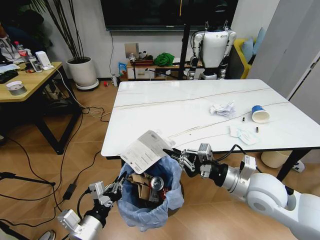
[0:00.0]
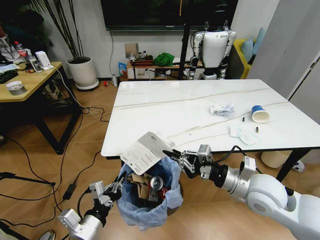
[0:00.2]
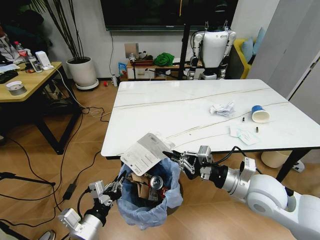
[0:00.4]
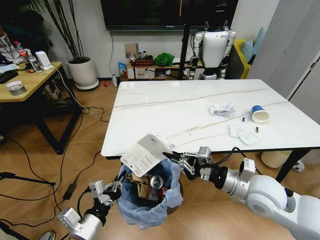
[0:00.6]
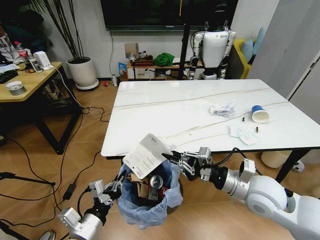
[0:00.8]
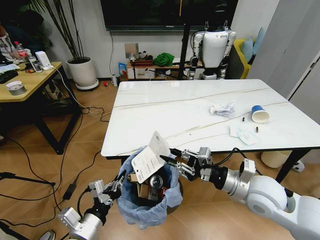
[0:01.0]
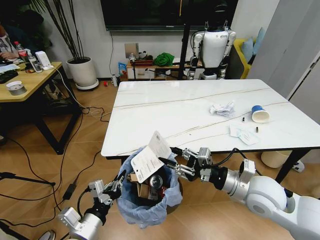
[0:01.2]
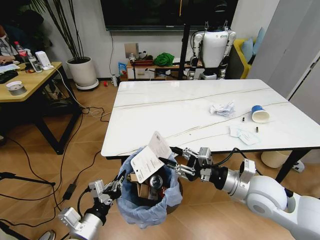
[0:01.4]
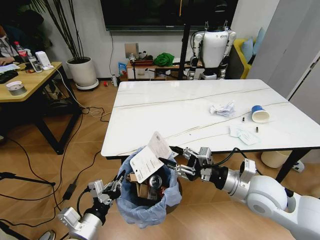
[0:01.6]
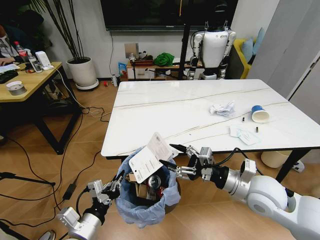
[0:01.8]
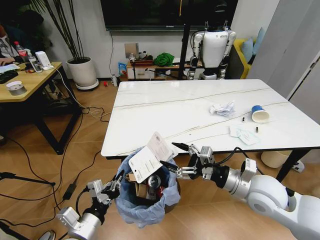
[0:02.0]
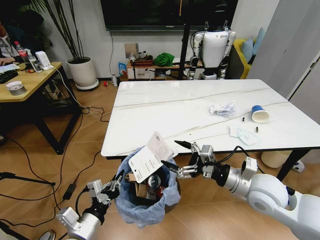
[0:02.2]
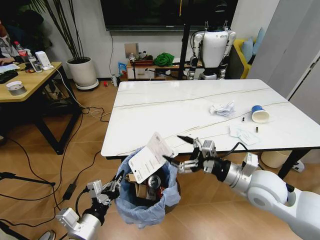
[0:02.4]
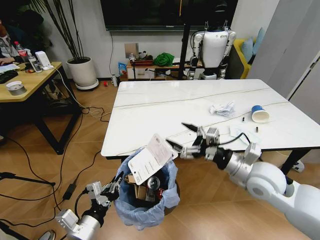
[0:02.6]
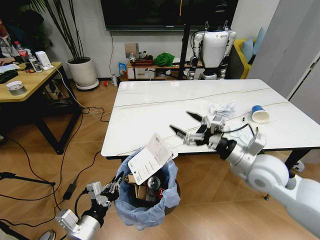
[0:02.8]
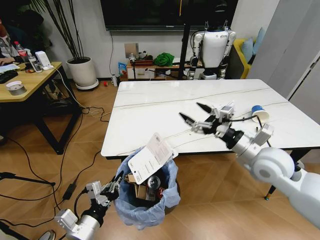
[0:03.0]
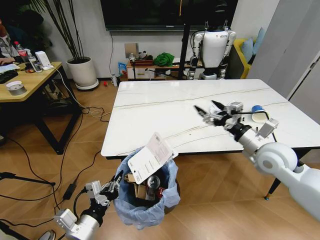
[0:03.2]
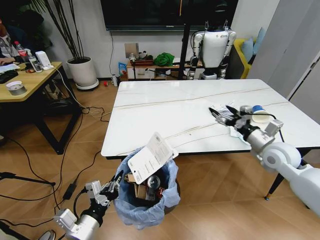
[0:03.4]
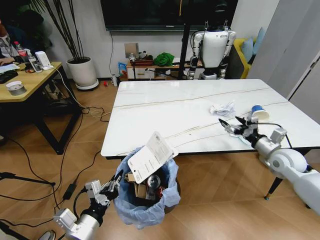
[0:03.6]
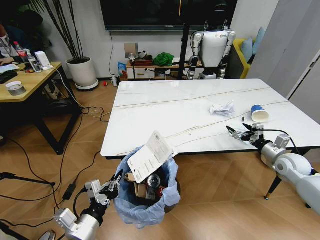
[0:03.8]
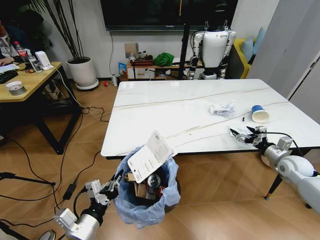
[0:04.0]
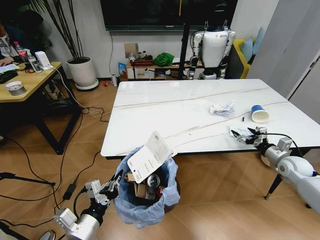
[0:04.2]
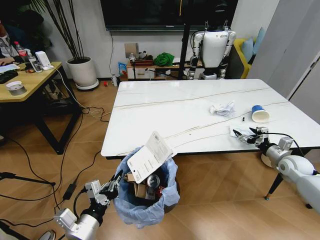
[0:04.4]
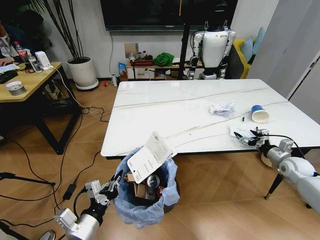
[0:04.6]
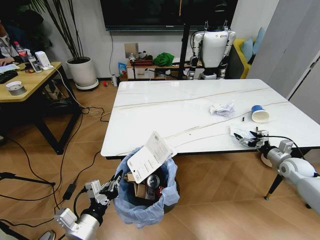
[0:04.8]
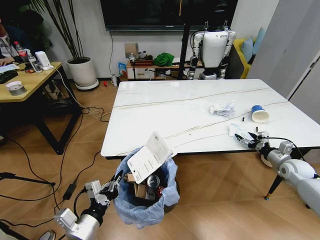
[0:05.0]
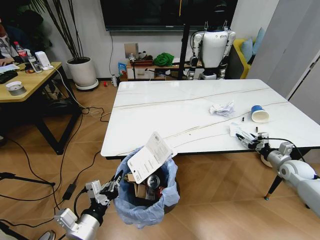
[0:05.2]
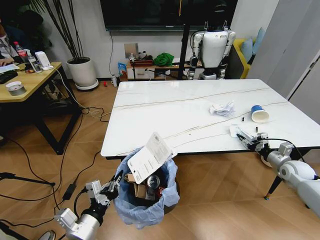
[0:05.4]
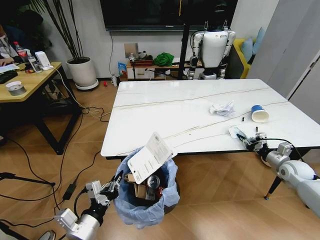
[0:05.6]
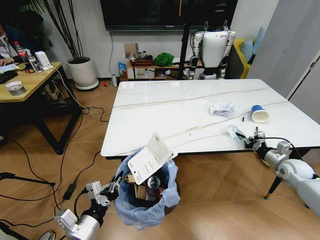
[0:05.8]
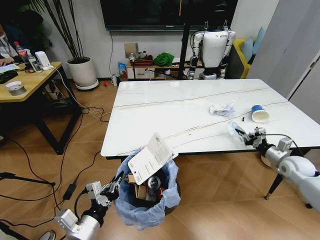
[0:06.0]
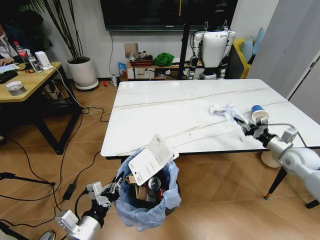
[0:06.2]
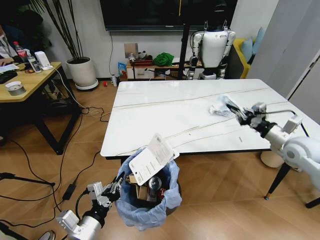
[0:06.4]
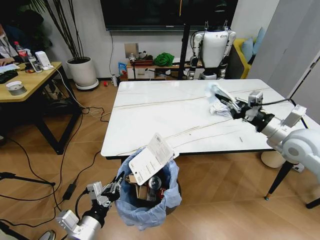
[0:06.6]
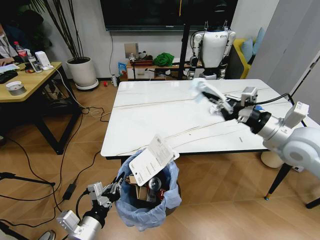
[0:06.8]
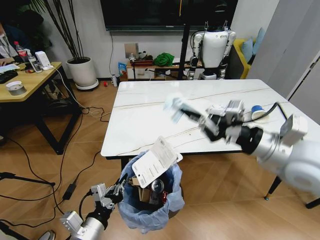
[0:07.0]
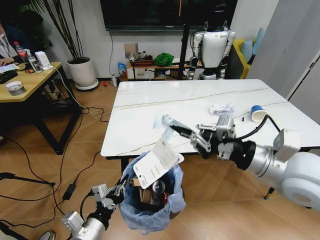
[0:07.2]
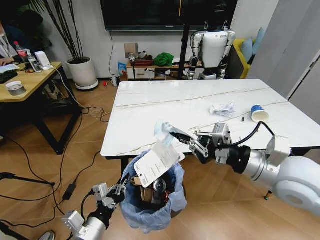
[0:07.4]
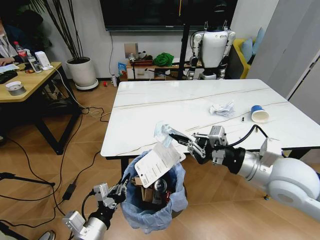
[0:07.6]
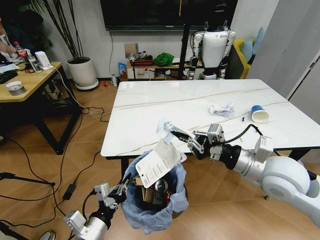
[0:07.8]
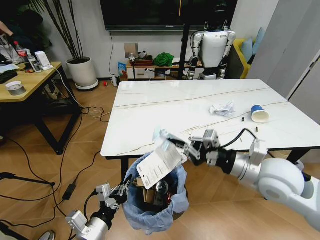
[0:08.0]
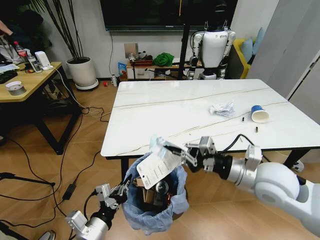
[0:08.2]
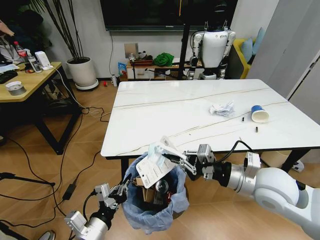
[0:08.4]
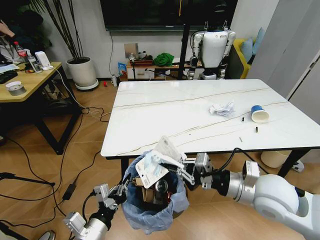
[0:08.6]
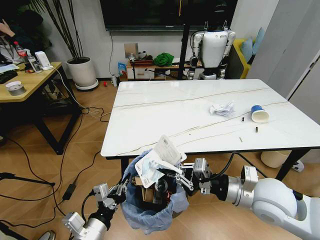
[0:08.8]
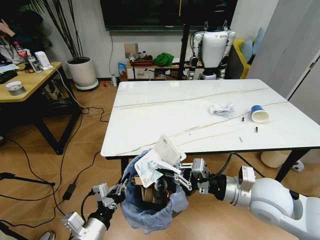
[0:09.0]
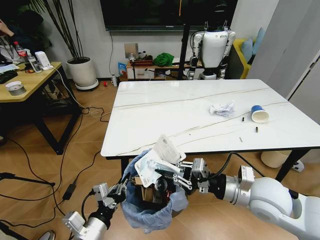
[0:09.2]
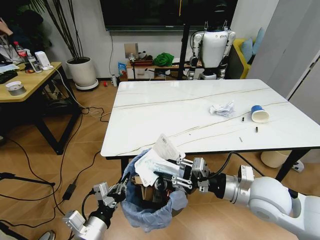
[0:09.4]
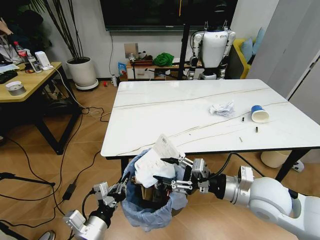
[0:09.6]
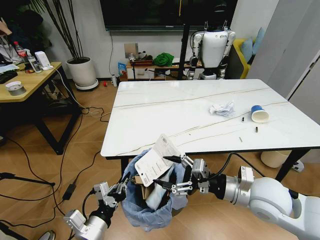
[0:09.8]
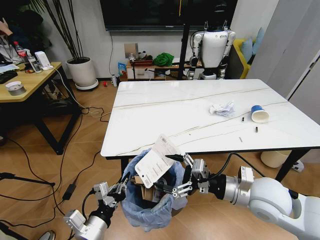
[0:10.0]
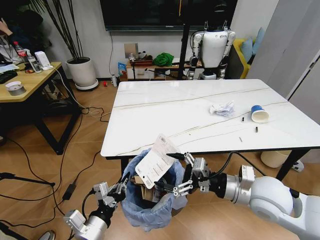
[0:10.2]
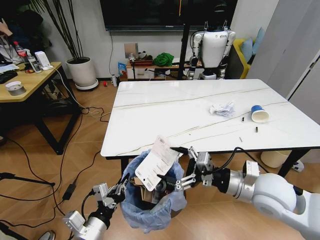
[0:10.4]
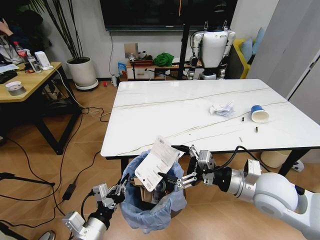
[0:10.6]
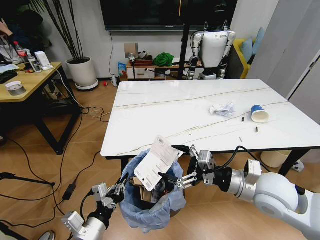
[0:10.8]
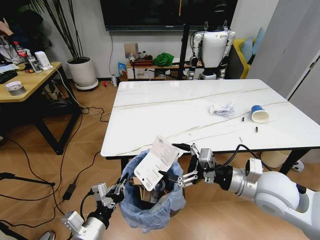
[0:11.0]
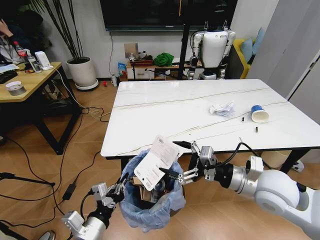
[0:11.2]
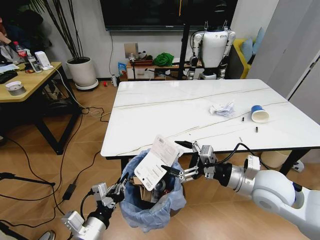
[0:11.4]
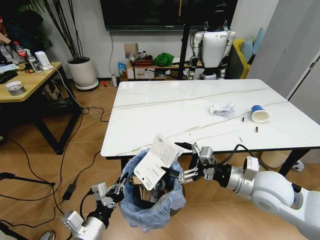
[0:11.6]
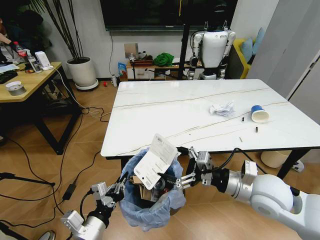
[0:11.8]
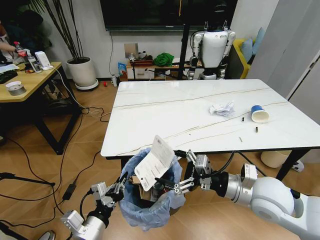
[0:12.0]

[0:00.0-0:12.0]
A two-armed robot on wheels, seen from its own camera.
Task of the whole recording: Pick up the trash bin and place the trash from the table into it.
0:00.0 to 0:01.6: The right gripper opens up.
0:01.6 to 0:03.0: The right gripper goes roughly 5 cm forward, and opens up.
0:03.0 to 0:04.4: The right gripper moves to the right and downward, roughly 25 cm.
0:04.4 to 0:06.0: The right gripper closes.
0:06.0 to 0:07.6: The right gripper travels to the left, upward and backward by approximately 35 cm.
0:07.6 to 0:09.0: The right gripper moves downward, approximately 5 cm.
0:09.0 to 0:10.4: The right gripper opens up.
0:10.4 to 0:12.0: The grippers move only a little.

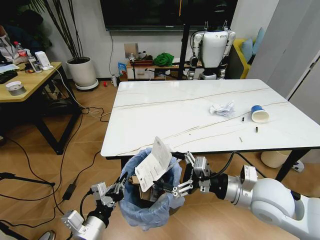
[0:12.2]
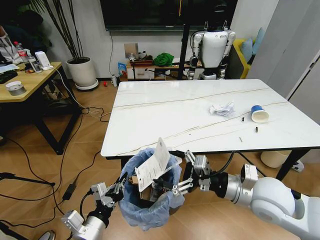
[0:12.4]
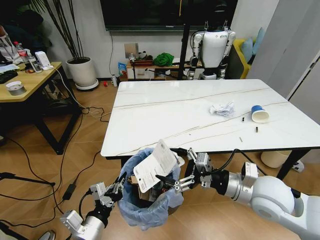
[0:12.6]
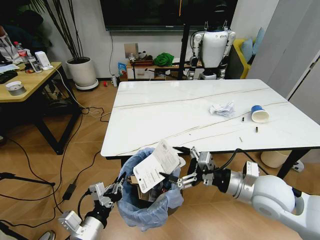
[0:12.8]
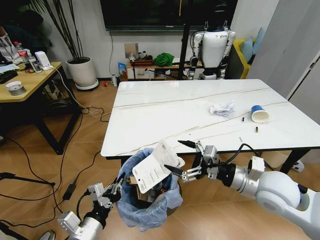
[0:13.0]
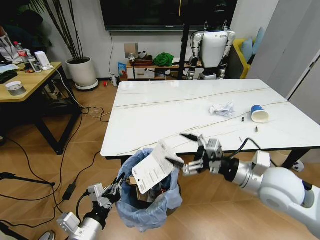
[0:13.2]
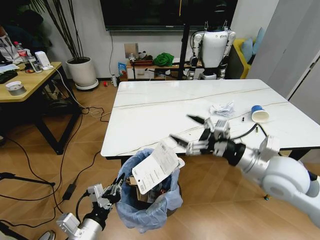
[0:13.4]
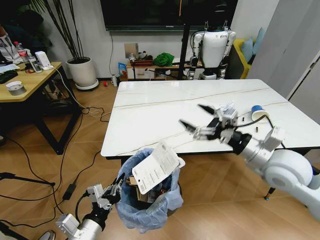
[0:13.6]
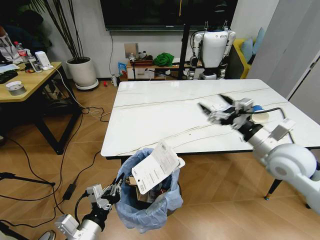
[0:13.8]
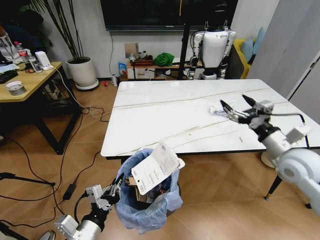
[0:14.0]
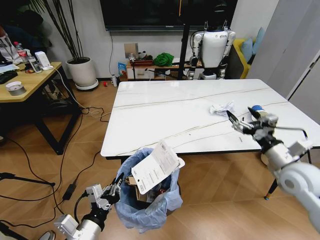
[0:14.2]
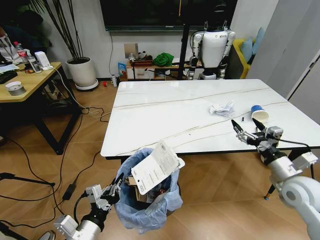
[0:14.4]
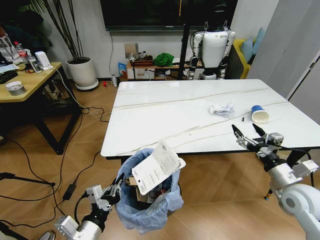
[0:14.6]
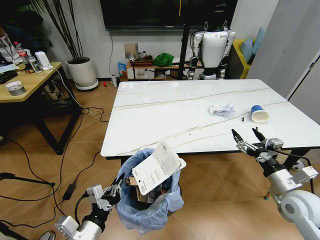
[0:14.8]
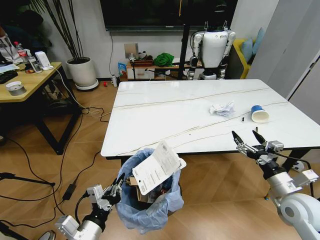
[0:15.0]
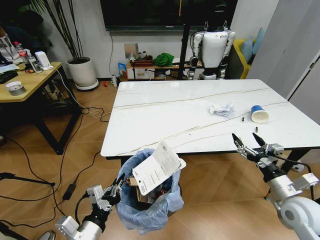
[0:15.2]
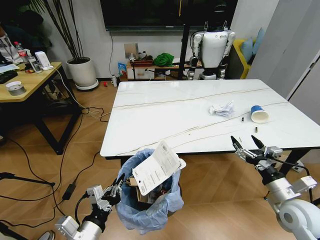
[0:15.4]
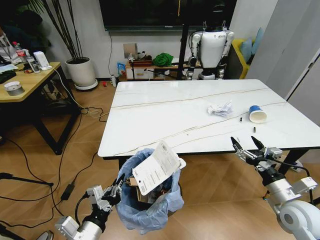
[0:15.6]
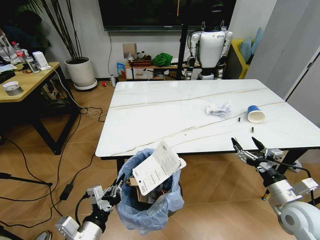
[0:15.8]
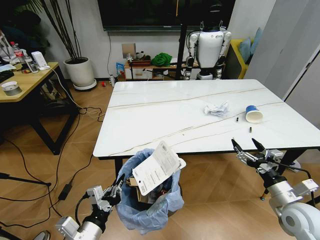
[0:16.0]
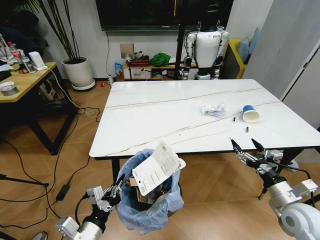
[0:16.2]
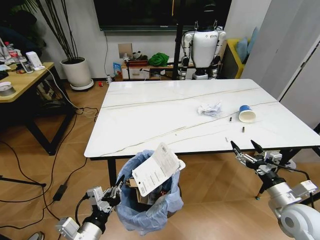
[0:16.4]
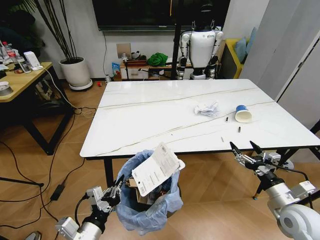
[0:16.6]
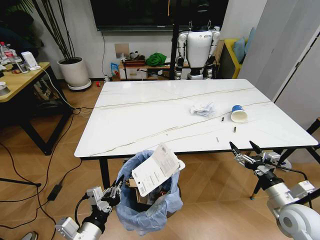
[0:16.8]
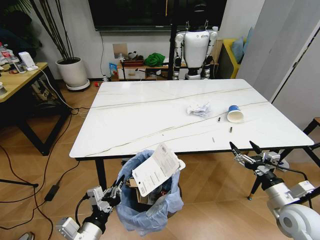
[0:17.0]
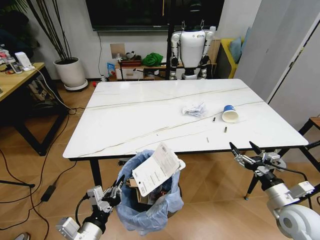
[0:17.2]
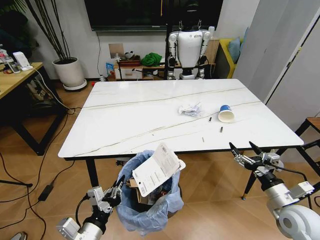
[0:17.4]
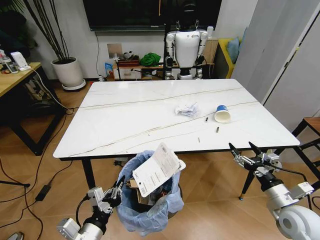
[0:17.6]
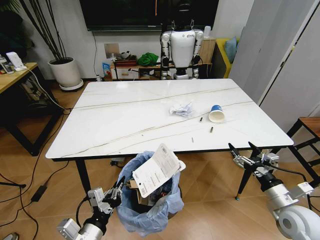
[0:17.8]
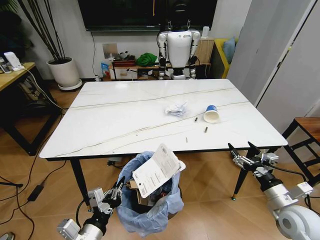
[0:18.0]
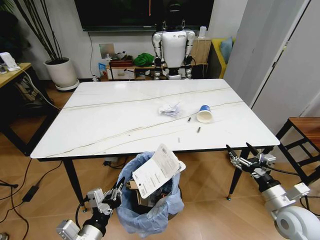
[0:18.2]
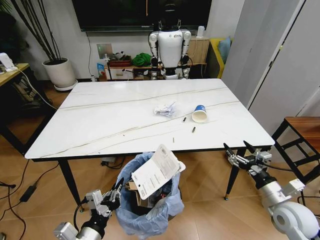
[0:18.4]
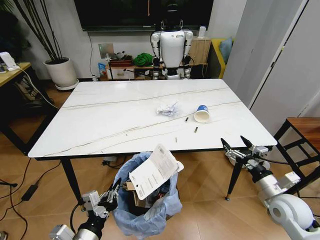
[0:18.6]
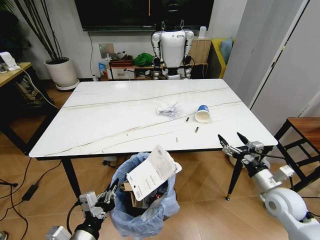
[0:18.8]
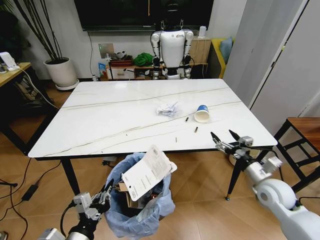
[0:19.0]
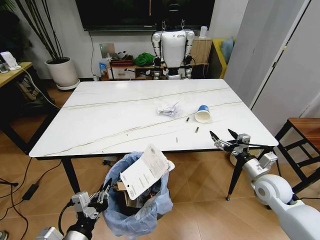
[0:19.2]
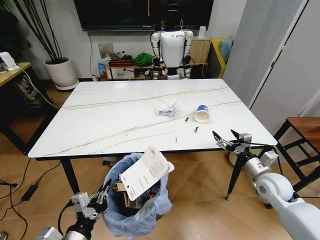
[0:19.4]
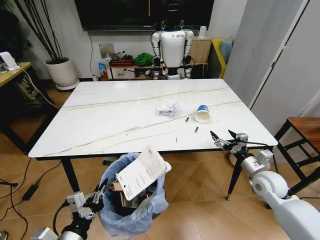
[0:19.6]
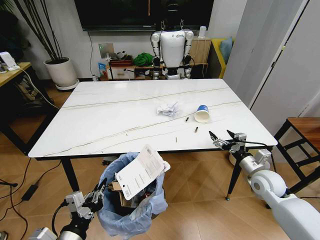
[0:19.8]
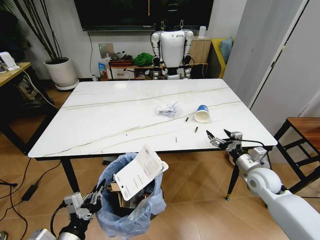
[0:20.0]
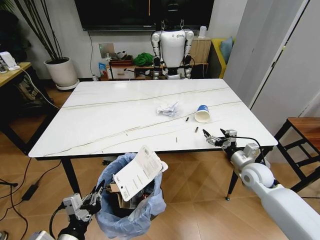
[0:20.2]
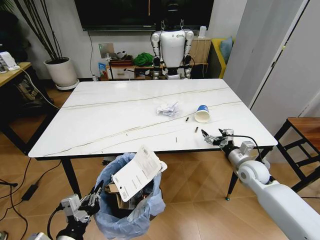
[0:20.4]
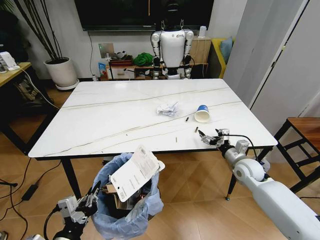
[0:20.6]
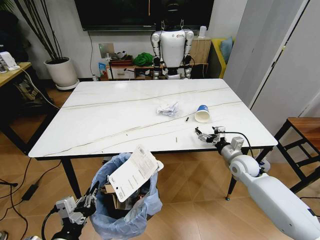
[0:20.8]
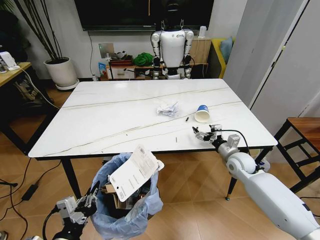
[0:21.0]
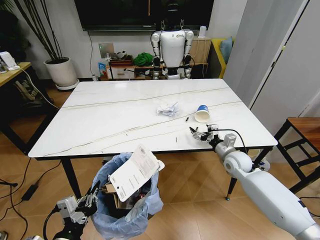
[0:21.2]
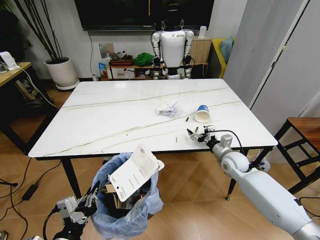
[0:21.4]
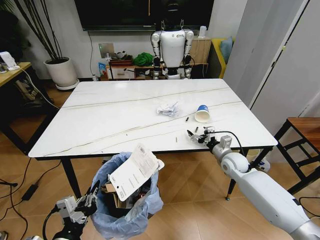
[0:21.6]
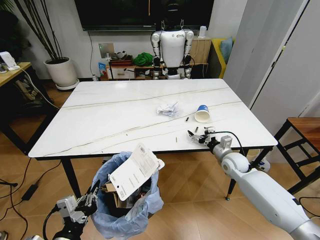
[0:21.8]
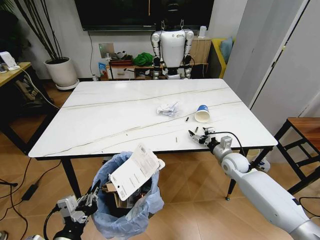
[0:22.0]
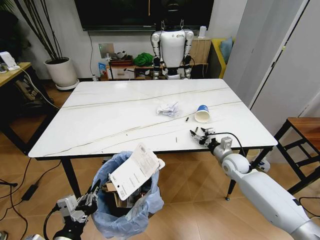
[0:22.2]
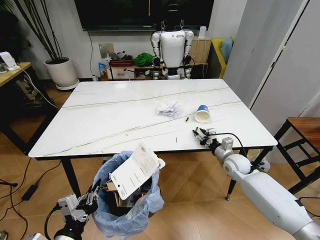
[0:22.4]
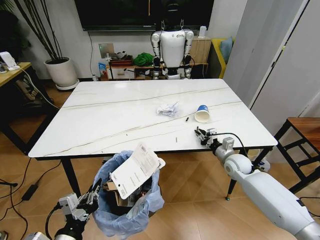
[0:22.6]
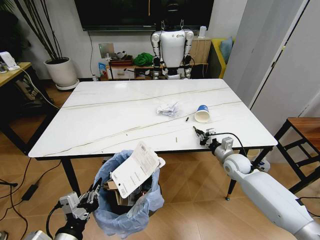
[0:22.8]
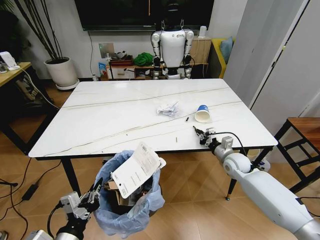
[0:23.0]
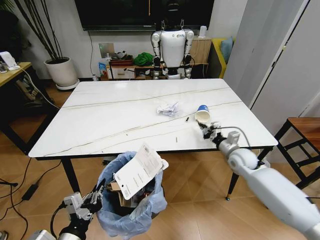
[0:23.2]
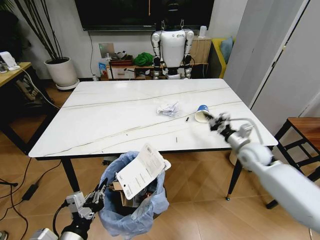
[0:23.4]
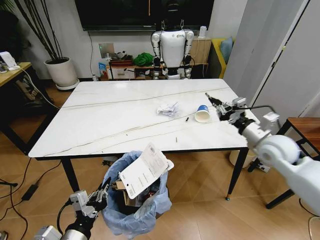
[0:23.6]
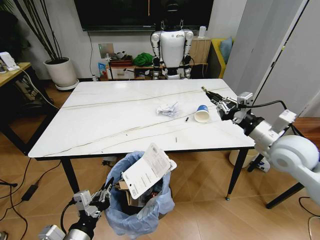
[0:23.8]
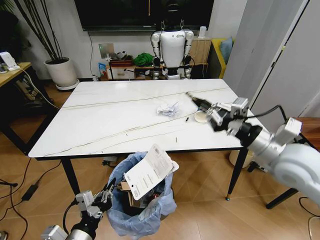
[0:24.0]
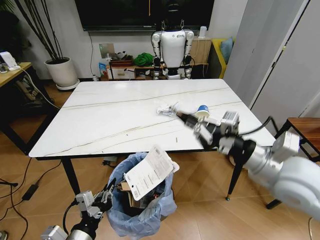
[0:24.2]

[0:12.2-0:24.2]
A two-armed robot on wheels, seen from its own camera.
Task of the whole recording: Pick up the trash bin and place the trash from the table into it.
0:12.2 to 0:13.8: The right gripper is displaced to the right and forward by roughly 10 cm.
0:13.8 to 0:15.2: The right gripper shifts approximately 15 cm downward and backward.
0:18.2 to 0:19.8: The right gripper moves forward, roughly 10 cm.
0:19.8 to 0:21.2: The right gripper moves forward and to the left, about 10 cm.
0:21.2 to 0:22.6: The right gripper closes its fingers.
0:22.6 to 0:24.2: The right gripper goes about 30 cm upward and backward.
